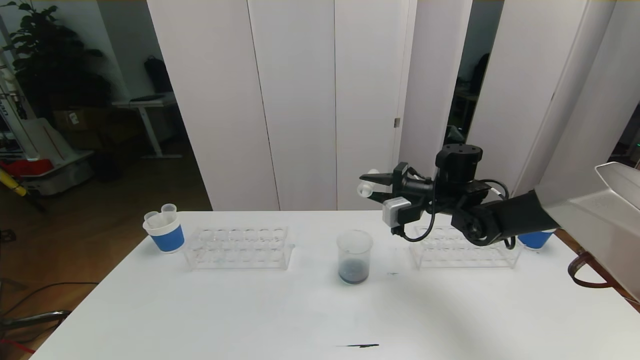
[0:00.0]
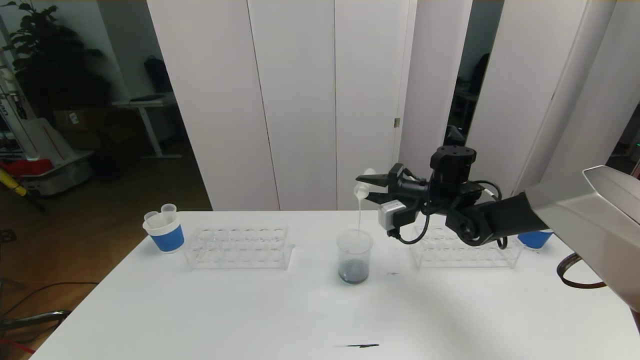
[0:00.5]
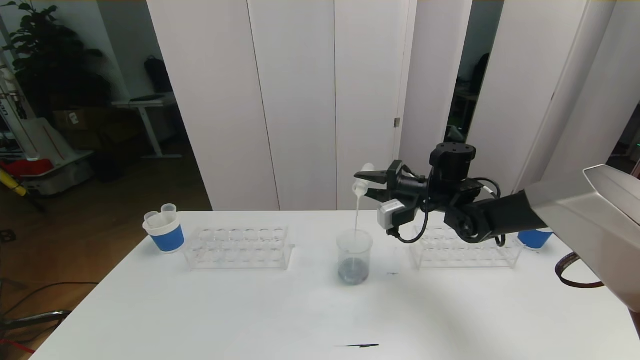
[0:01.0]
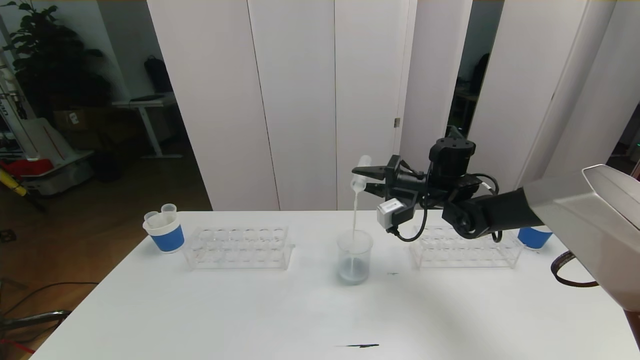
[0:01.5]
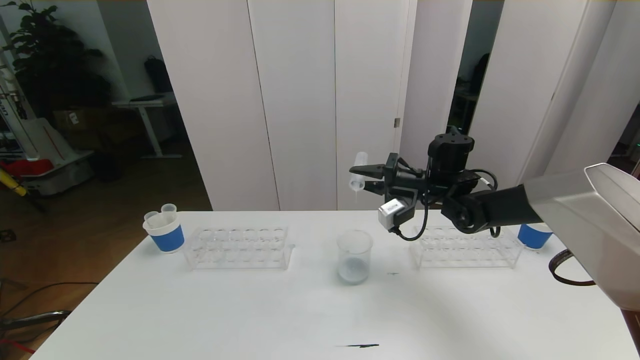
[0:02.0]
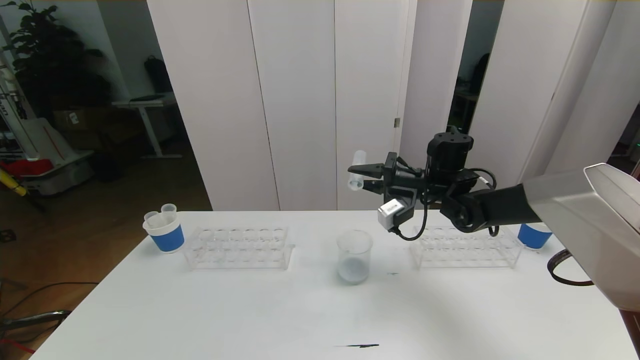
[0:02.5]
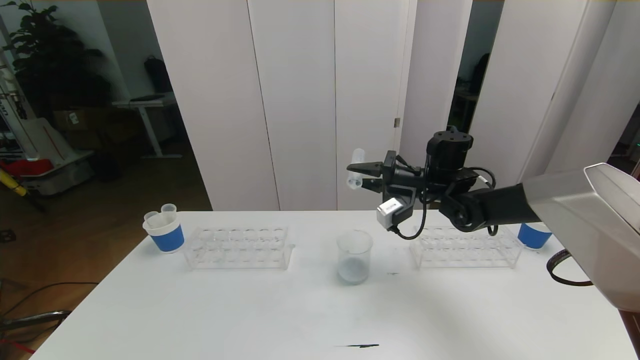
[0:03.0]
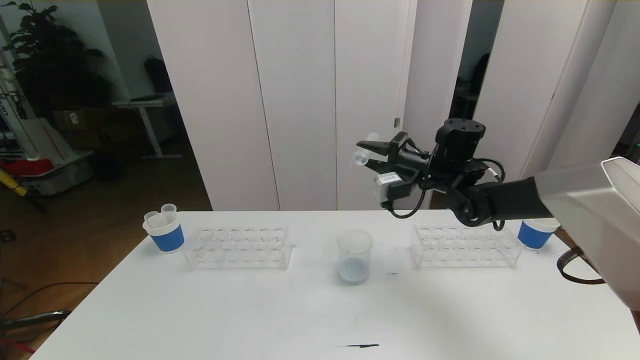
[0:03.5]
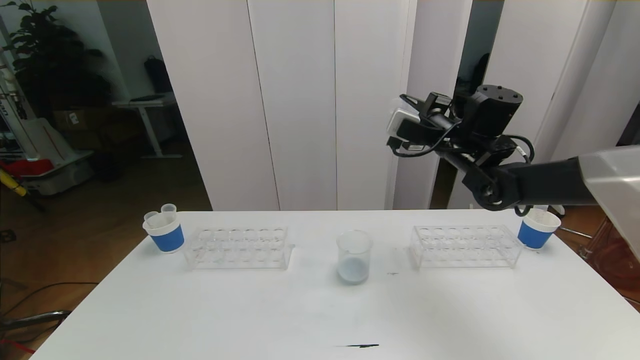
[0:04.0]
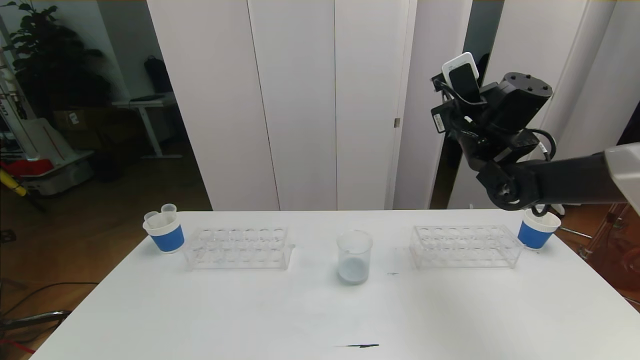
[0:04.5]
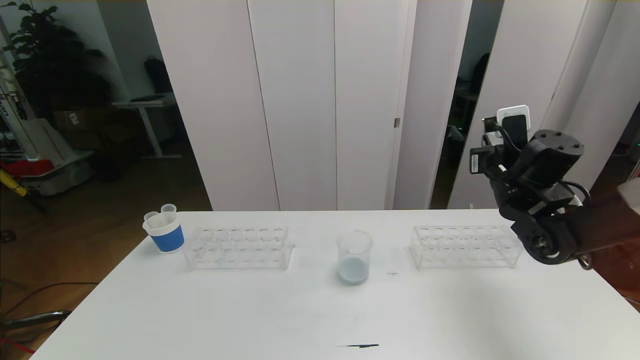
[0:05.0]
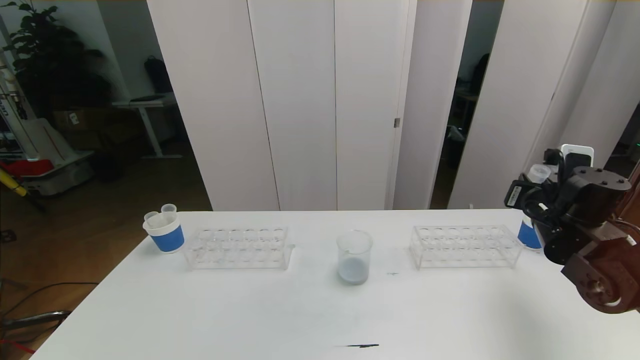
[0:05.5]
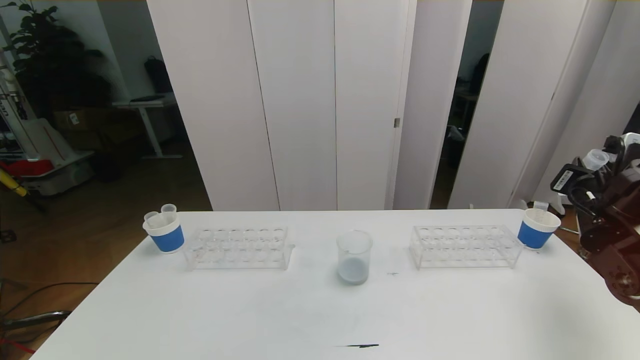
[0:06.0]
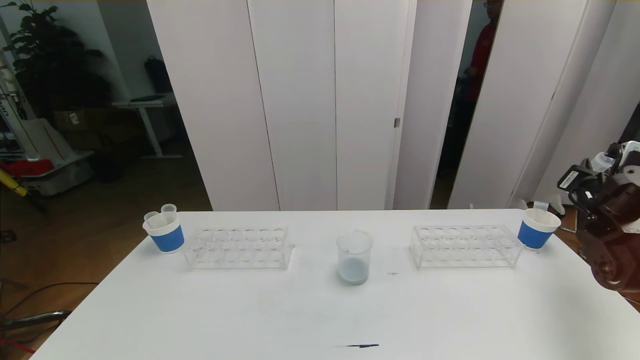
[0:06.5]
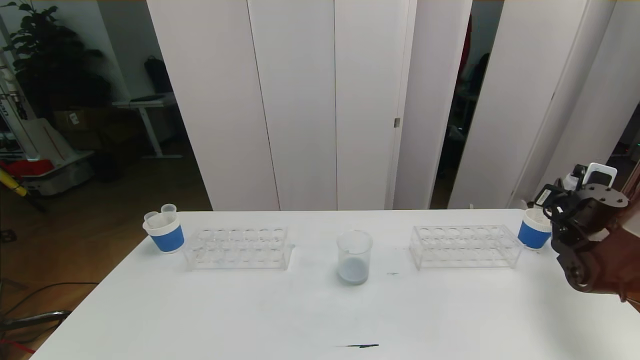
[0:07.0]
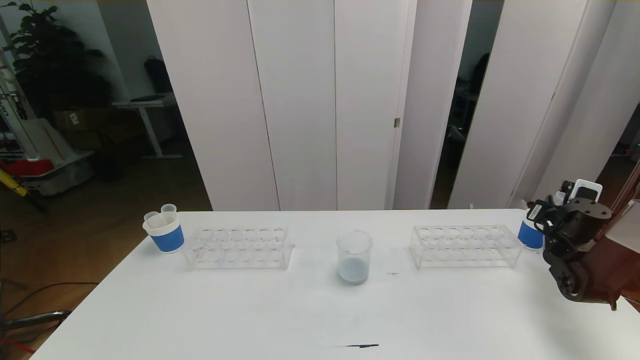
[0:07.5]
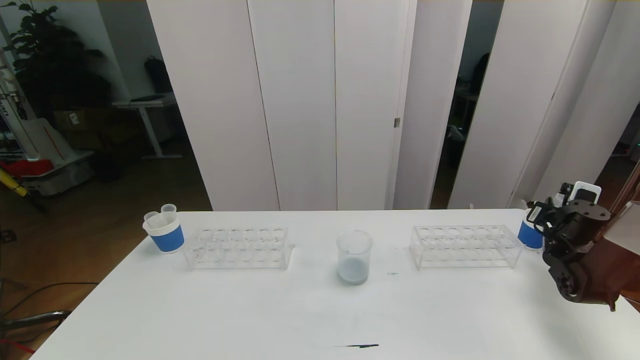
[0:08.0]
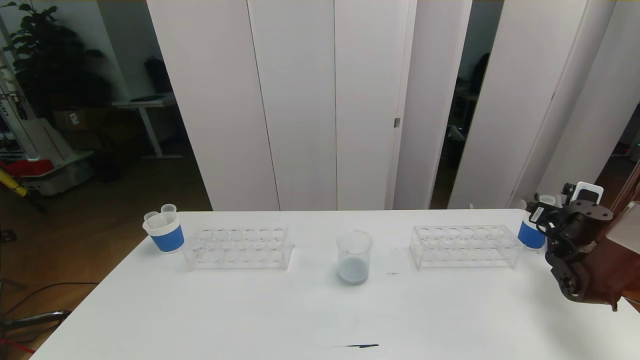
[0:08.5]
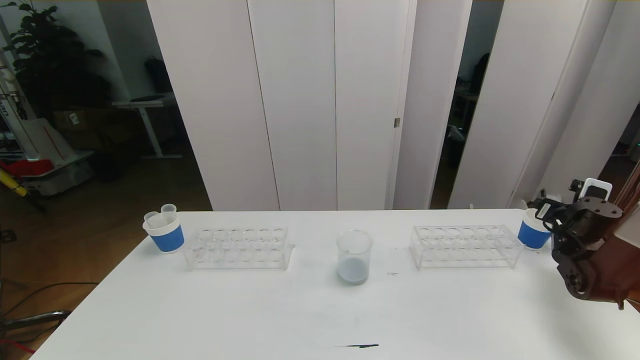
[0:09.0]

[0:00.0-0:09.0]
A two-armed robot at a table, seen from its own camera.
Task of the whole recording: pick up the test tube with red pigment the test tube with blue pigment and the test tube with white pigment by grippers and pour them into the beaker.
0:02.0 to 0:04.5: The right gripper is displaced upward by roughly 10 cm.
0:04.5 to 0:07.0: The right gripper is displaced to the right and downward by some 25 cm.
0:07.0 to 0:09.0: The right gripper opens up.

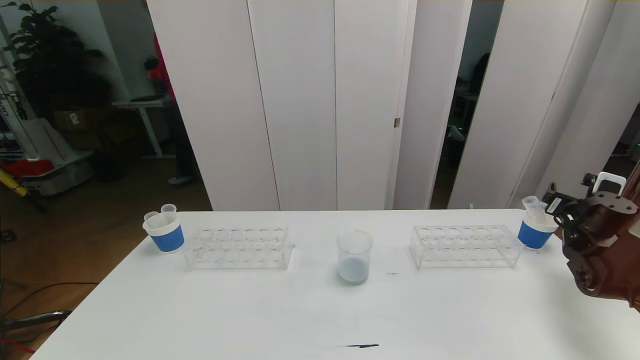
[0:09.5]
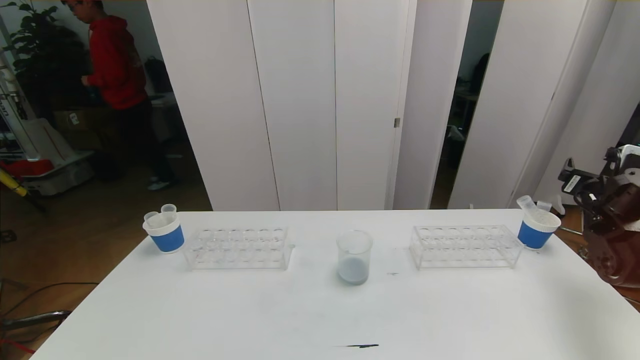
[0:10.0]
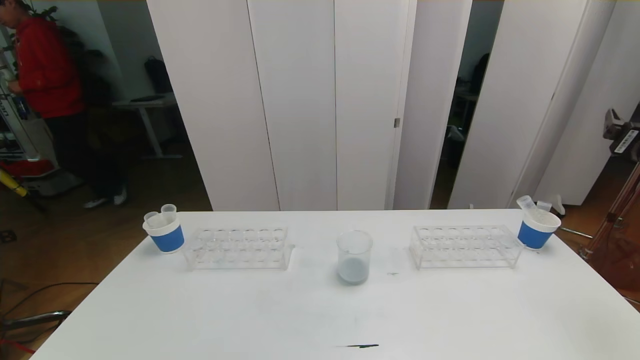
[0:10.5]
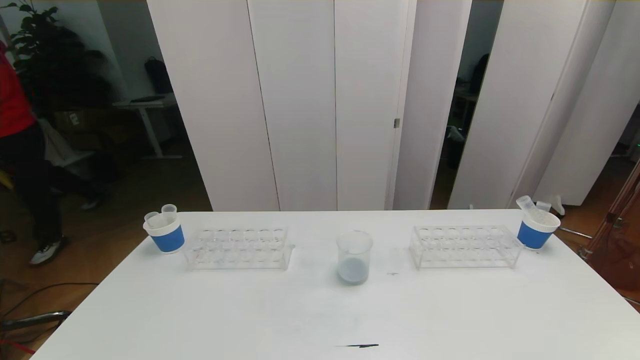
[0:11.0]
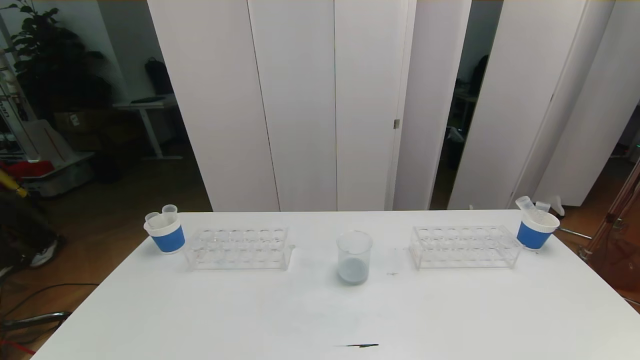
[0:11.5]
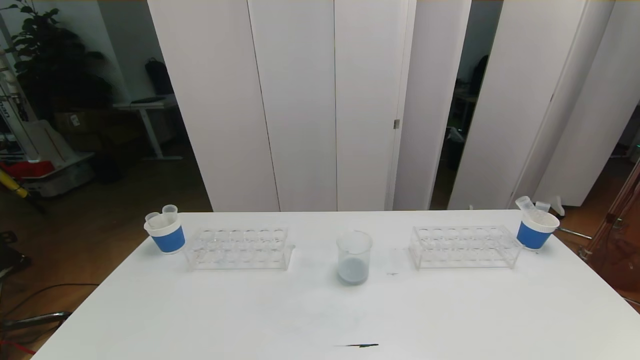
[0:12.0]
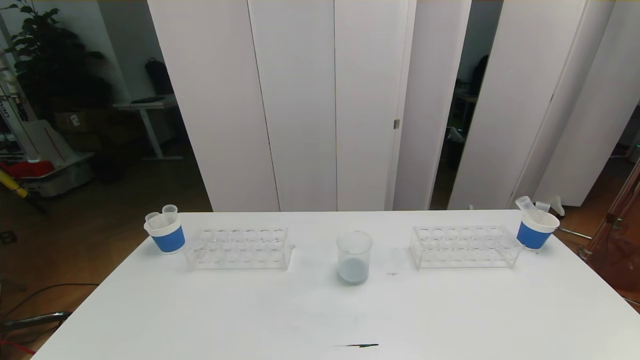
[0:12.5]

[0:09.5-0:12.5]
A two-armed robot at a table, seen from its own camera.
Task of the whole recording: pick up the test tube with red pigment the test tube with blue pigment and the test tube with white pigment by grippers and pour them into the beaker.
0:09.5 to 0:11.0: The right gripper heads backward and upward, covering approximately 35 cm.
